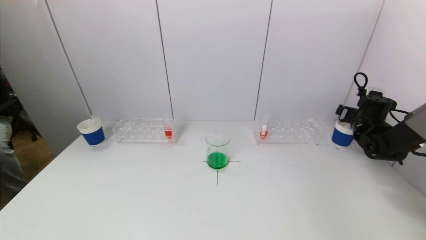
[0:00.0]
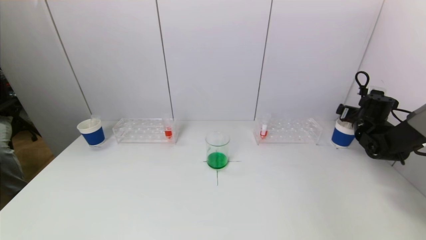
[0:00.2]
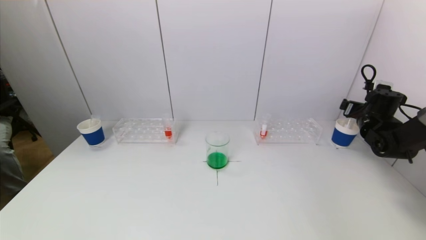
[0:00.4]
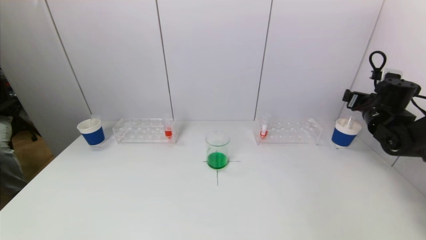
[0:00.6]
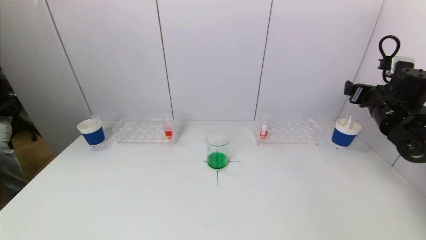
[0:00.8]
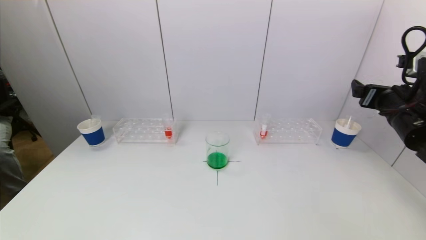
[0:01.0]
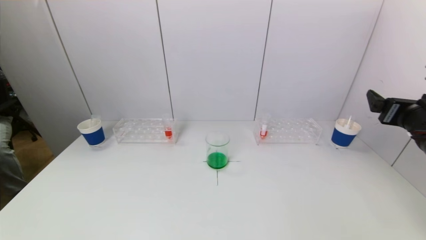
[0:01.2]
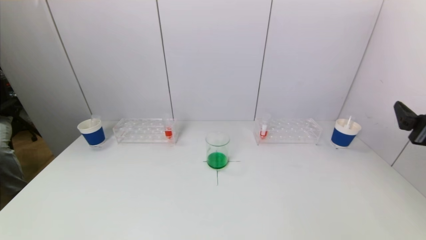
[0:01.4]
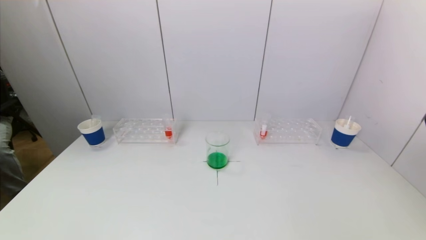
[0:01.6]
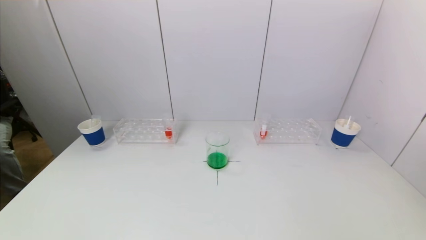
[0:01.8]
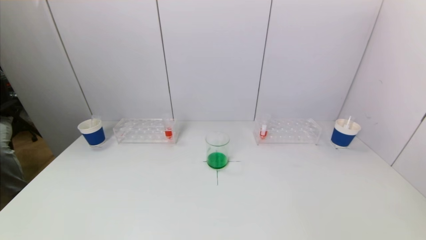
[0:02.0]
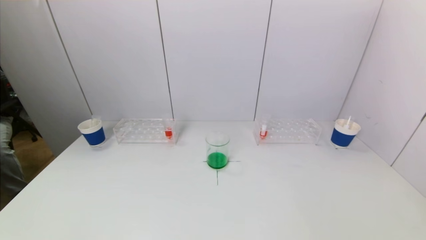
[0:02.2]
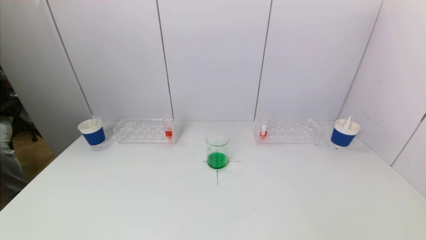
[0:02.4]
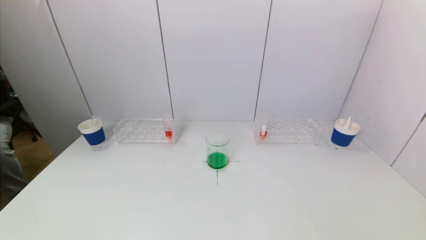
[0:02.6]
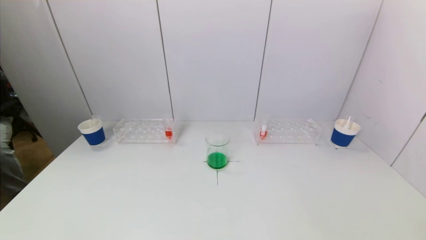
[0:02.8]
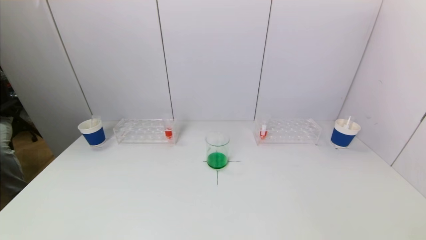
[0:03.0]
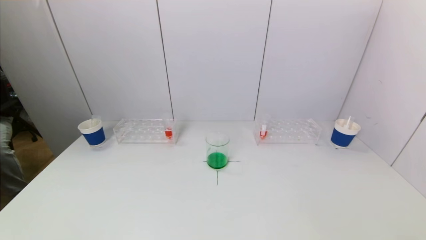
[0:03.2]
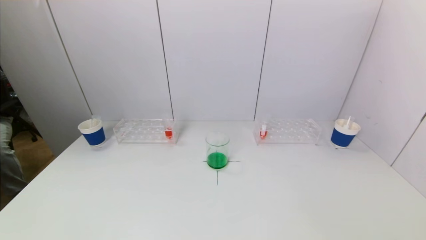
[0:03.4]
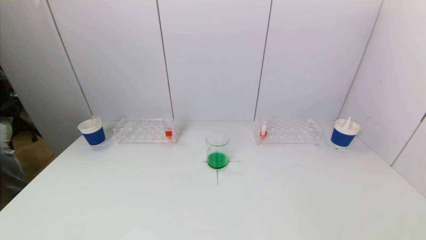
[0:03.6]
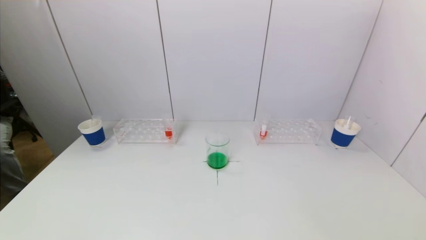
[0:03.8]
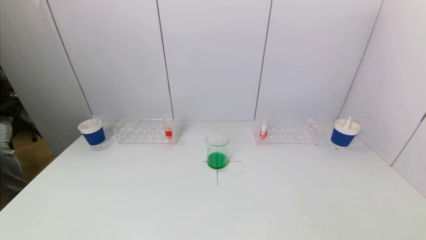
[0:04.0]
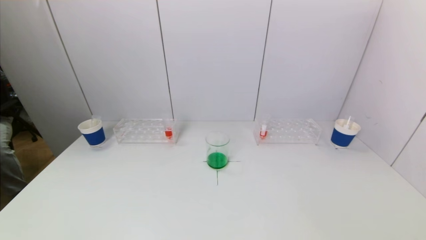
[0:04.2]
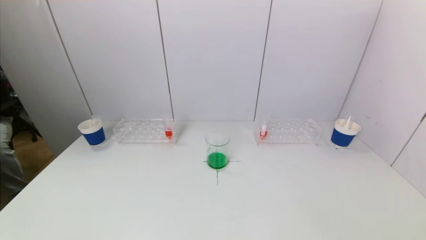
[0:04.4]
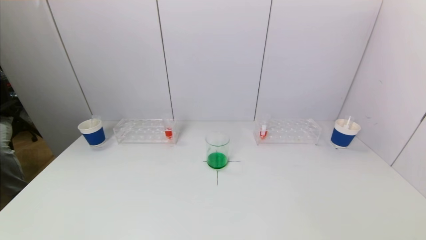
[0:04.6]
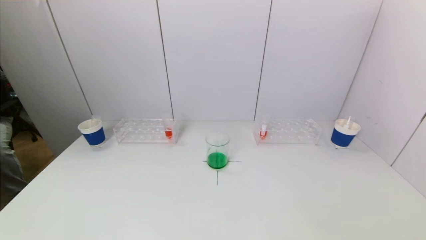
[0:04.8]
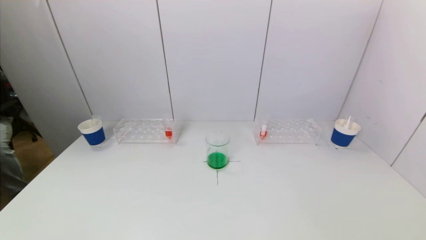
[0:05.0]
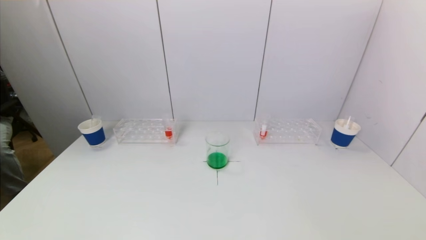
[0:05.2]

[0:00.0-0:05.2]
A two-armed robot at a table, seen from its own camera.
Task of the whole recording: pick up a test tube with pigment on left test tube rack and a test tube with pigment on right test tube rack by grippers and pour them into the beaker.
0:00.0 to 0:01.8: The right gripper goes about 35 cm backward.
0:03.4 to 0:05.2: Both grippers stay put.

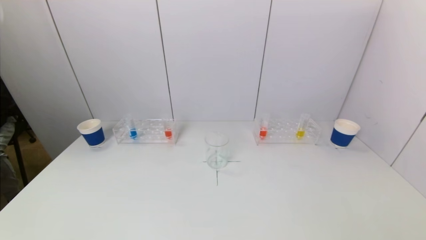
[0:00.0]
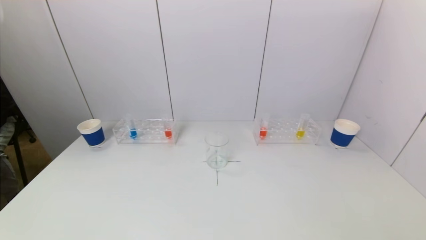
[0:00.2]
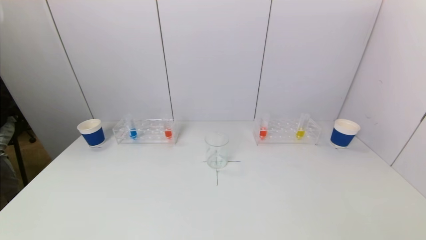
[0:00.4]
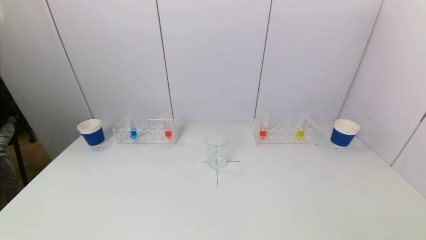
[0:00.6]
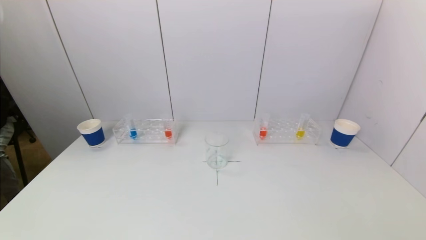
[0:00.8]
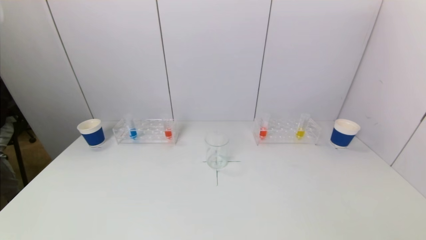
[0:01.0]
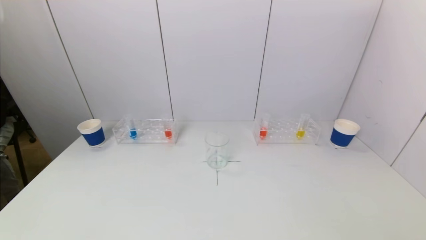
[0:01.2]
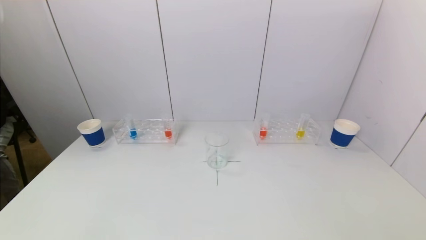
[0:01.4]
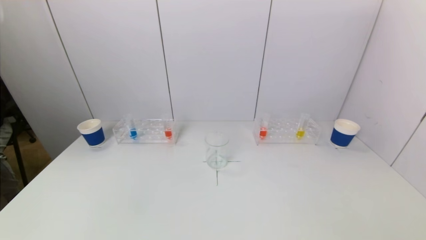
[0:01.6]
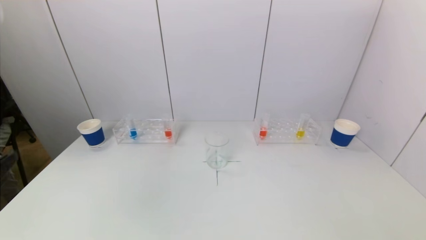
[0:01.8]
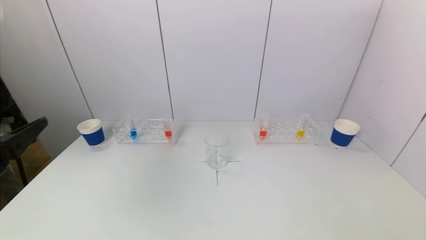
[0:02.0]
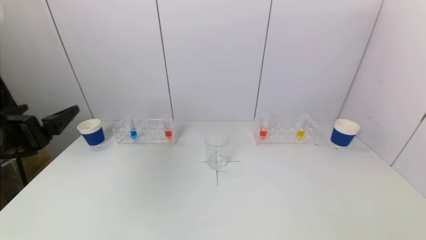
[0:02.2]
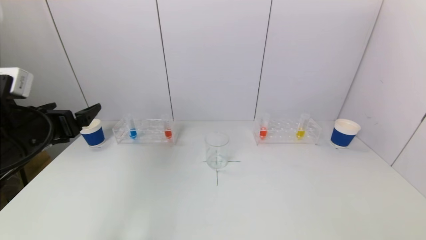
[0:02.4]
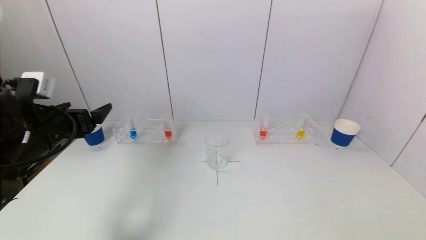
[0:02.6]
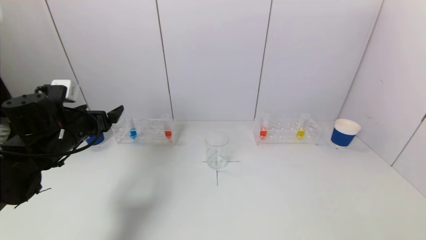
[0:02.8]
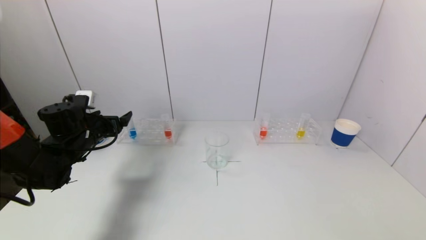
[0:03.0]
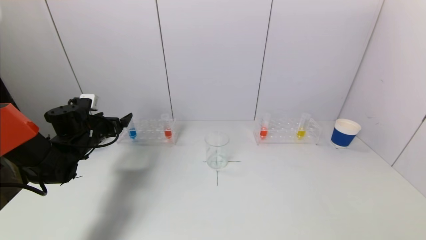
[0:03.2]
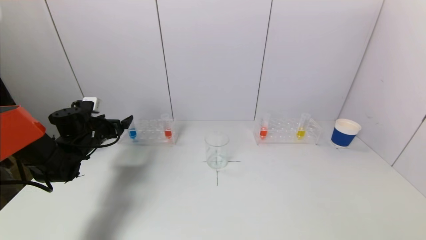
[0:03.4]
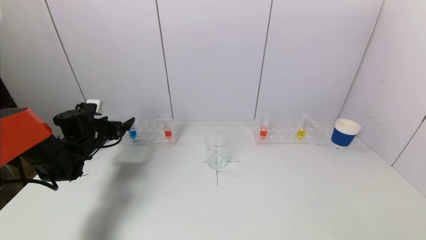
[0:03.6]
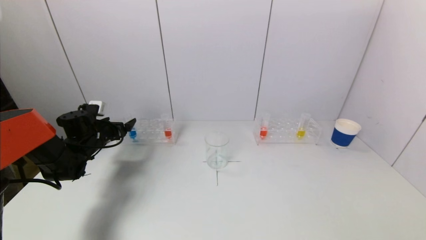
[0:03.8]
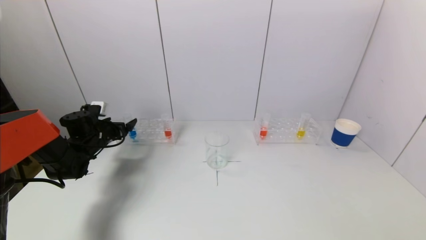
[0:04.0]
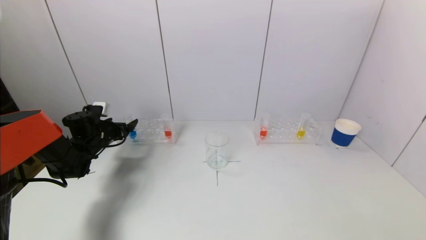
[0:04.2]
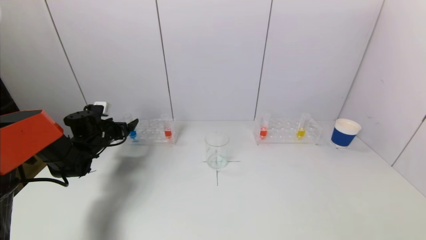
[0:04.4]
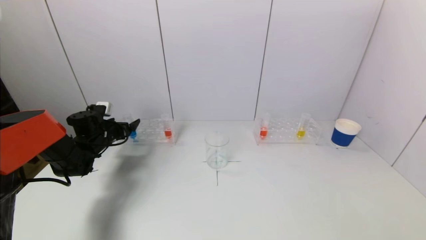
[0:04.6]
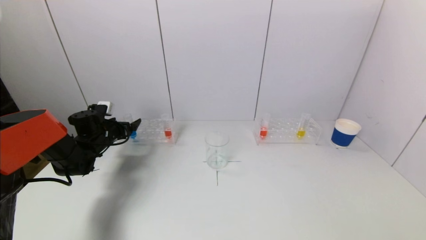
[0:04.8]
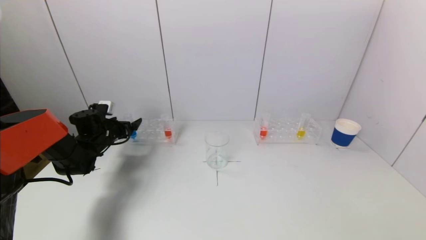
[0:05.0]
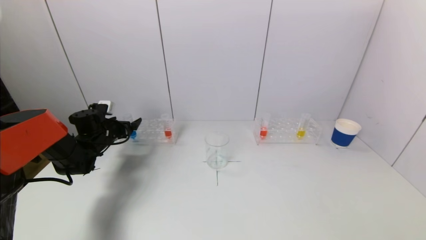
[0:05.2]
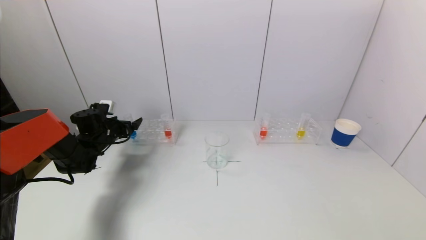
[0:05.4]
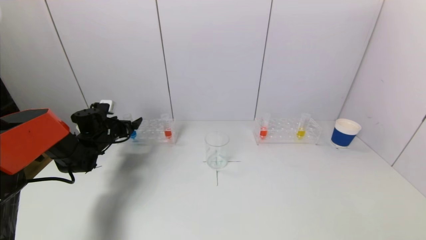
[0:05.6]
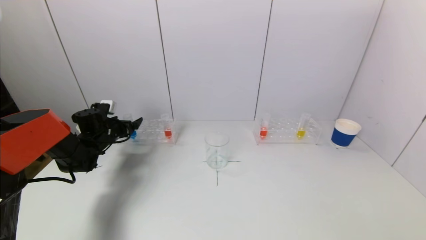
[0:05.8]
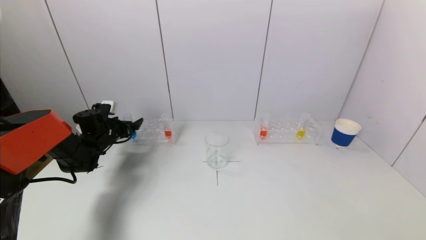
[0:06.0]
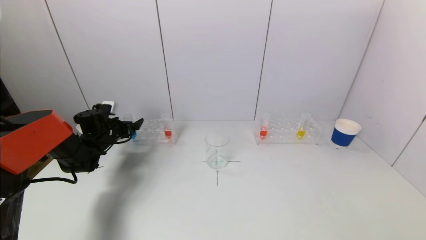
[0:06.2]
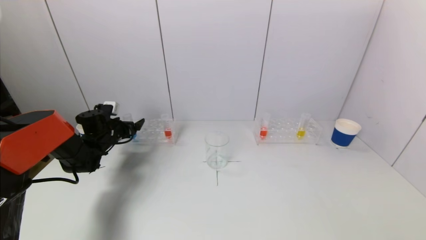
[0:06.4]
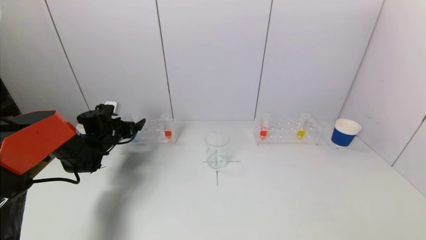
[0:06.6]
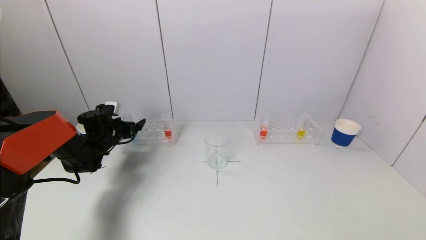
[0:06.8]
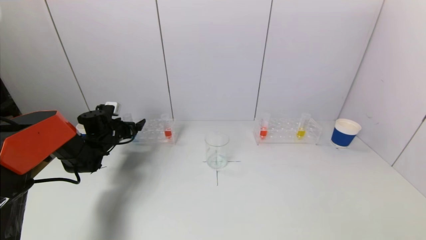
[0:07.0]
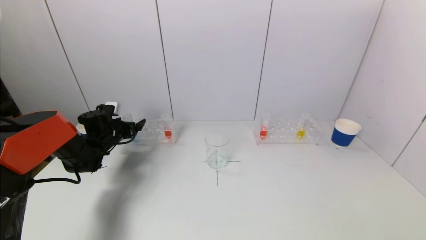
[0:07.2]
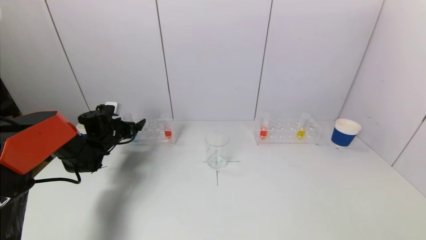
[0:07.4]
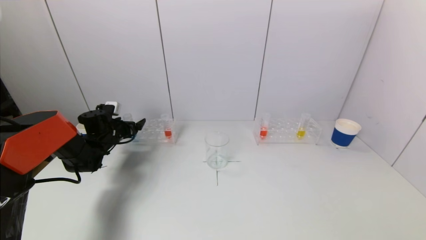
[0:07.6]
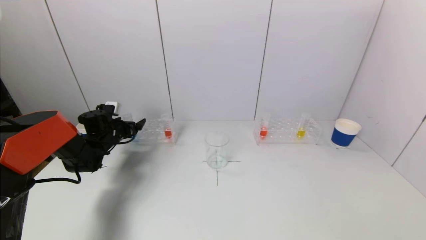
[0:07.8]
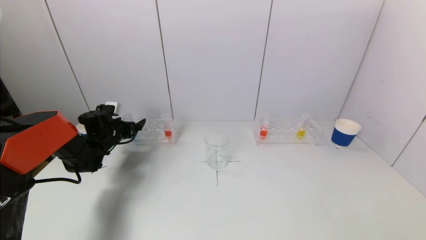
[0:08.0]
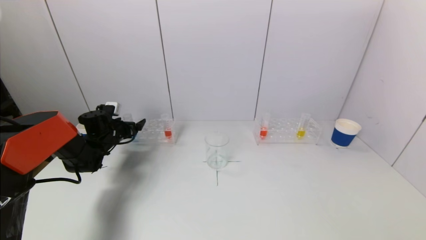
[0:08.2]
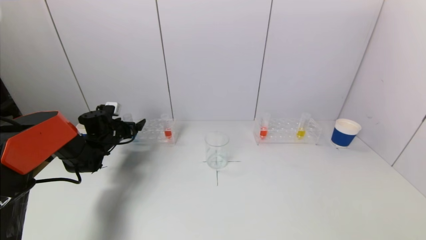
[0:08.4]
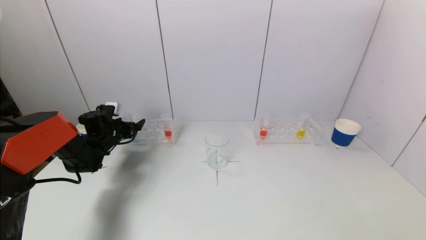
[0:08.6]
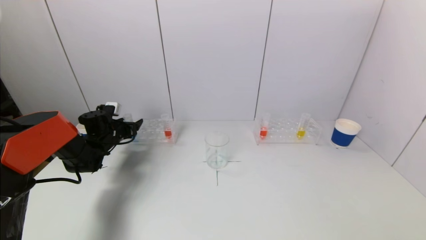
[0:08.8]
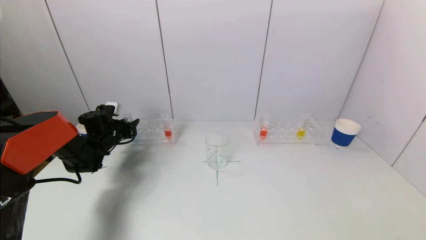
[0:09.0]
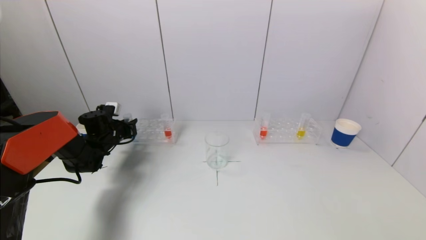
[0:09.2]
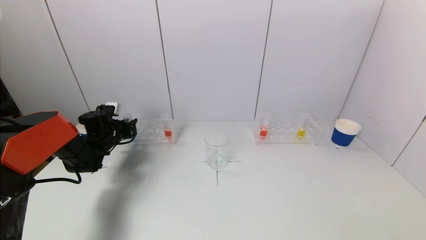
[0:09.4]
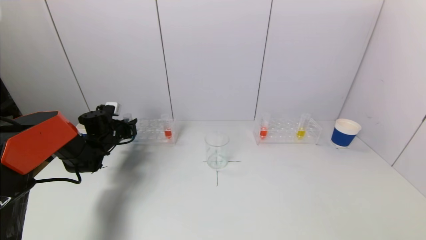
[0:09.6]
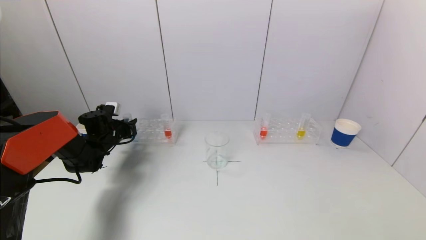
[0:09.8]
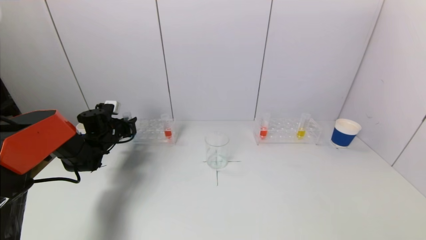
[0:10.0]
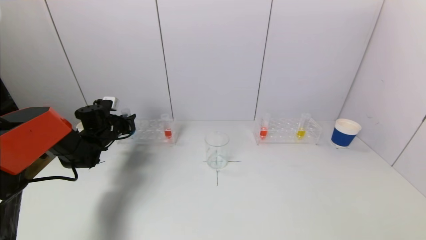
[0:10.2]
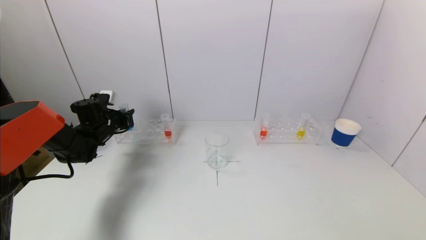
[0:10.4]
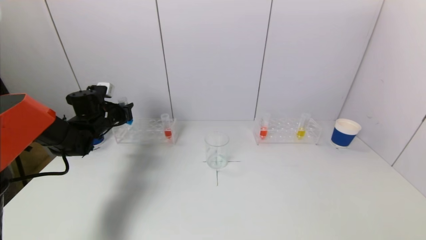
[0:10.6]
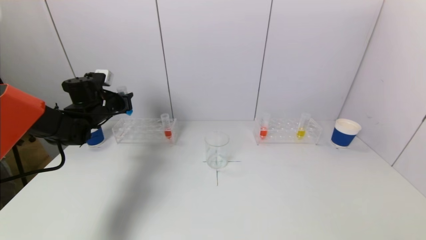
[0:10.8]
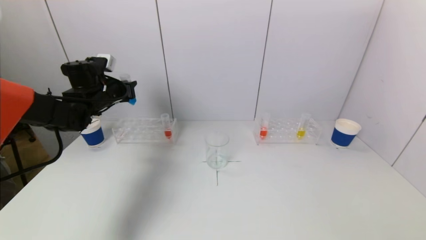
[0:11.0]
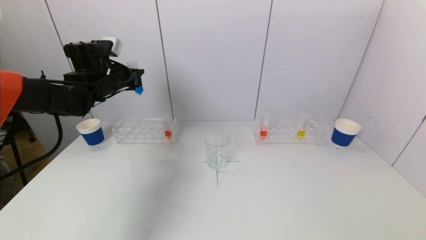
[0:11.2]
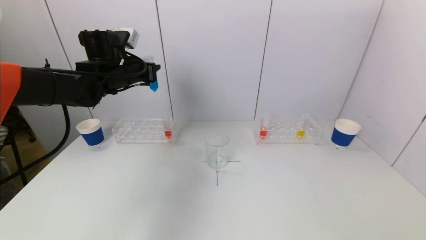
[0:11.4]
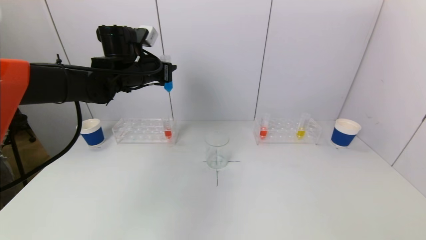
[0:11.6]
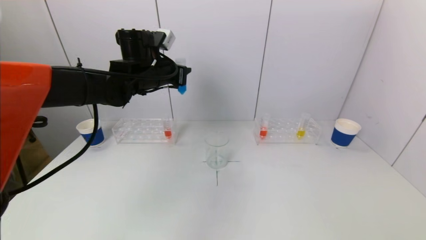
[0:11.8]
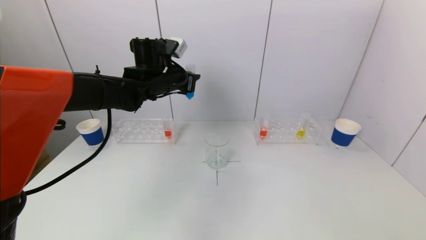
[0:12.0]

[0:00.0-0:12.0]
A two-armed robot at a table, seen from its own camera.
Task of the whole recording: pick up a test tube with pigment on left test tube rack and a test tube with pigment on right test tube rack by grippers and pour them into the beaker.
Step, 0:00.0 to 0:09.4: Grasp the blue reagent with the left gripper.
0:01.6 to 0:03.0: The left gripper travels forward by approximately 35 cm.
0:03.0 to 0:04.4: The left gripper is displaced forward and downward by roughly 10 cm.
0:04.4 to 0:06.0: There are only small adjustments of the grippers.
0:06.0 to 0:07.6: The two grippers keep their place.
0:09.0 to 0:10.4: The grippers move only a little.
0:10.4 to 0:12.0: The left gripper heads to the right and upward, covering some 25 cm.
